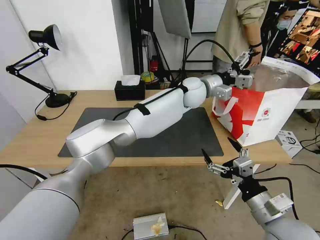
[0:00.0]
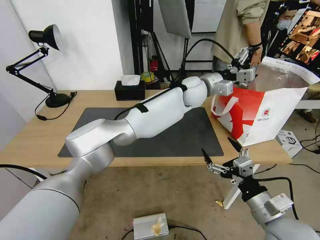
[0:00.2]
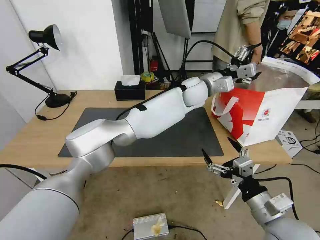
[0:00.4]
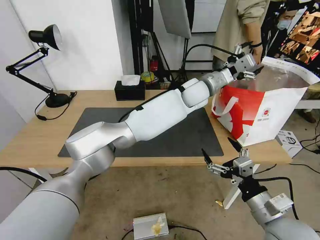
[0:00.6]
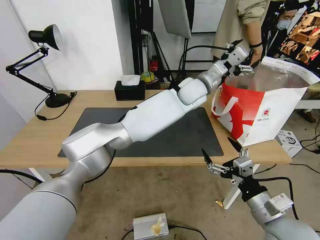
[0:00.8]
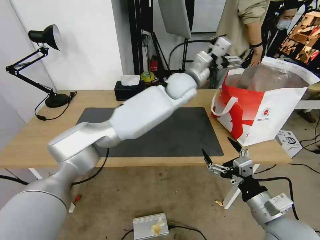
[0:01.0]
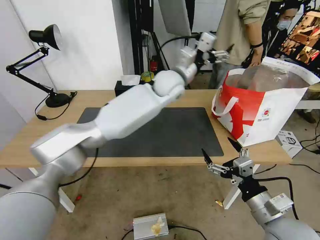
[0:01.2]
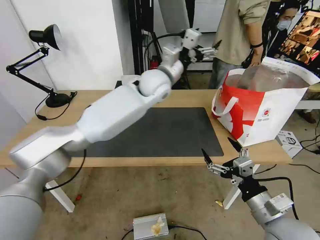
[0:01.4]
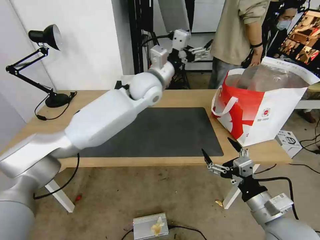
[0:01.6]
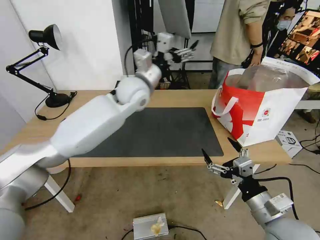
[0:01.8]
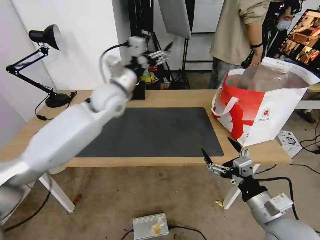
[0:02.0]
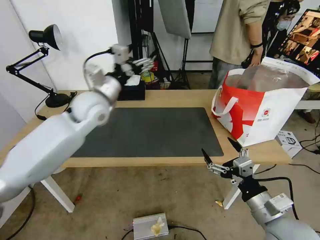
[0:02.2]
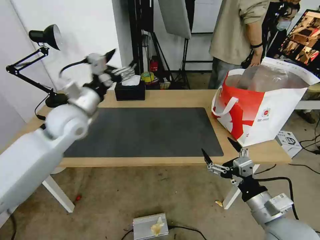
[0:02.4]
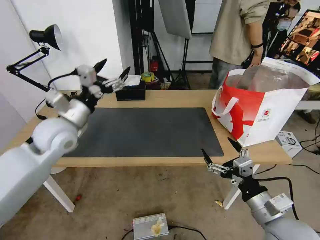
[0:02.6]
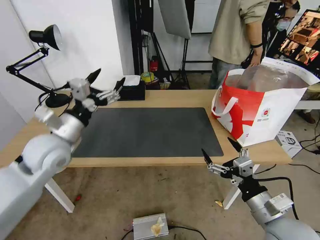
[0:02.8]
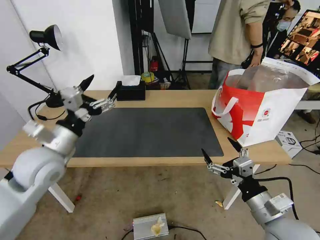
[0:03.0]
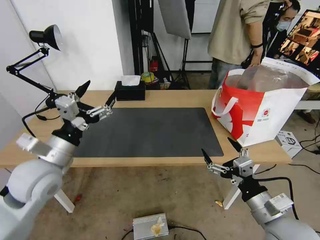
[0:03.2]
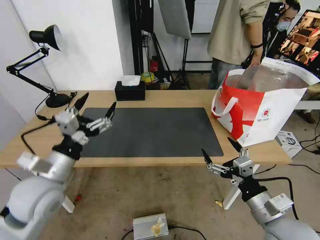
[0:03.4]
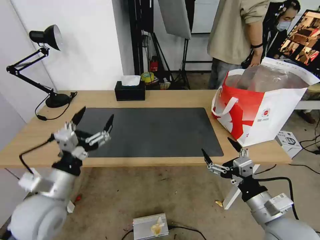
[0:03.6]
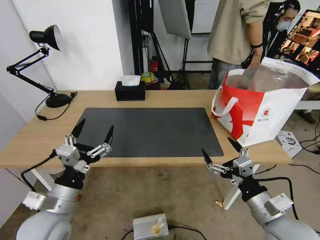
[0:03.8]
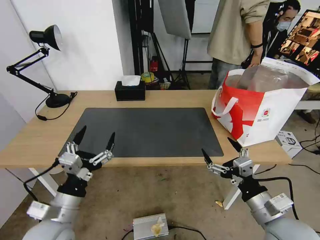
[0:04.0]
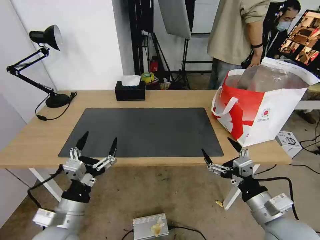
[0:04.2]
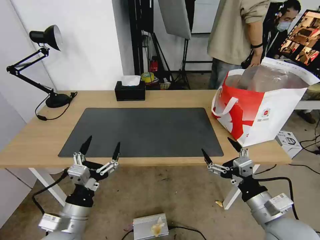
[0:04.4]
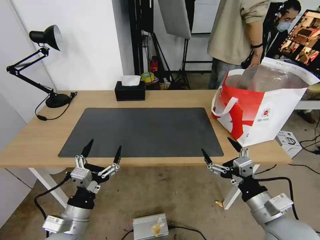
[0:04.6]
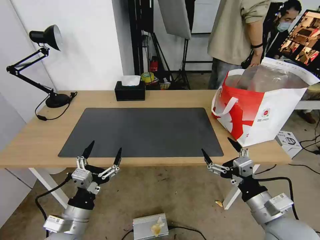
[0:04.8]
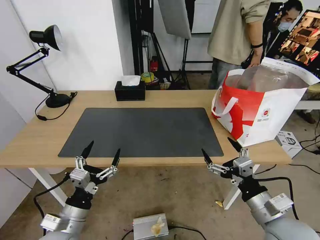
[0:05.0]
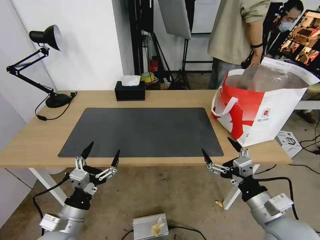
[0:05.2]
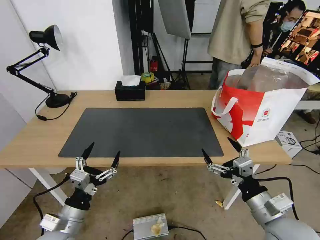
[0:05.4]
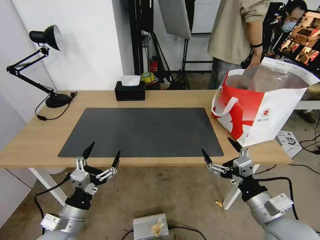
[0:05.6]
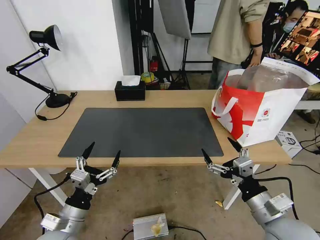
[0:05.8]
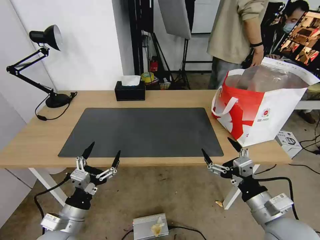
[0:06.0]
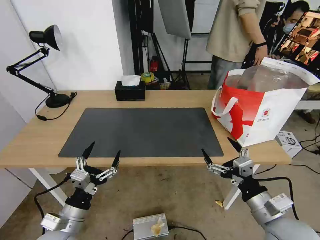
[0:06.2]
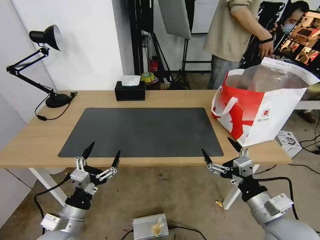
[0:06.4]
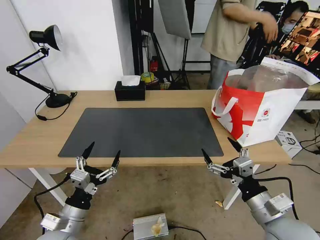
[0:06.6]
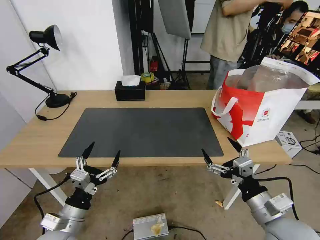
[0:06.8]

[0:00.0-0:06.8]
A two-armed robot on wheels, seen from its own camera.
Task of the whole recording: Pick up the trash from the table and place it into the takeout bag.
0:00.0 to 0:01.4: The left gripper travels to the left by about 15 cm.
0:01.4 to 0:02.8: The left gripper is displaced to the left and backward by approximately 35 cm.
0:02.8 to 0:04.0: The left gripper moves backward and downward, roughly 20 cm.
0:04.0 to 0:05.4: The left gripper travels downward by approximately 5 cm.
0:05.4 to 0:06.8: The two grippers keep their place.

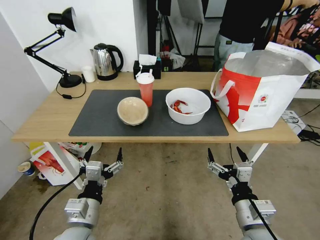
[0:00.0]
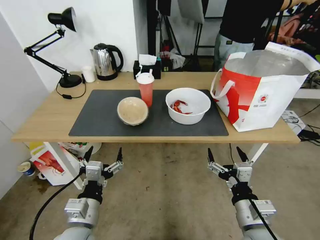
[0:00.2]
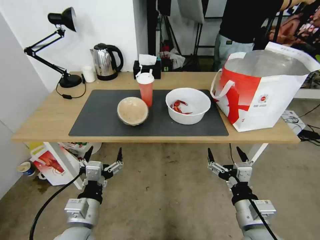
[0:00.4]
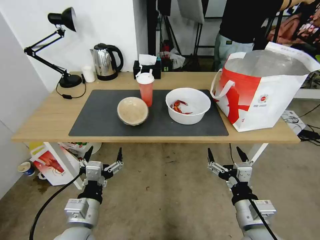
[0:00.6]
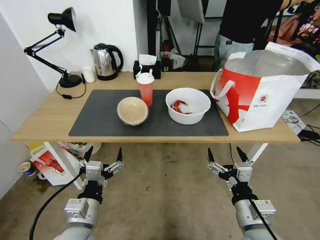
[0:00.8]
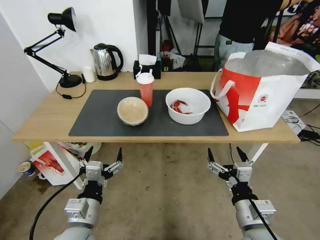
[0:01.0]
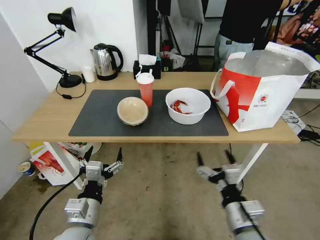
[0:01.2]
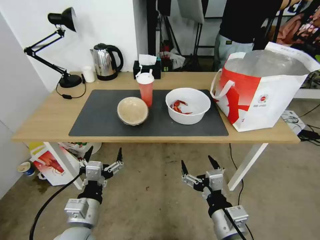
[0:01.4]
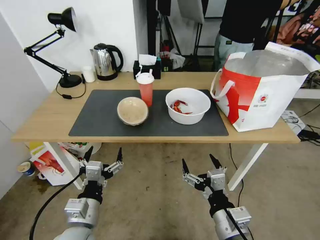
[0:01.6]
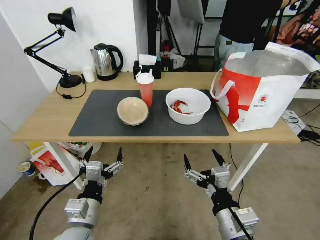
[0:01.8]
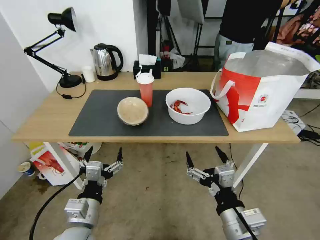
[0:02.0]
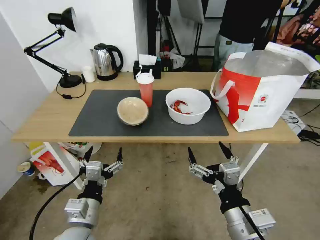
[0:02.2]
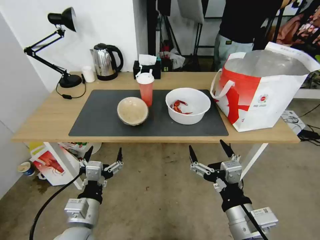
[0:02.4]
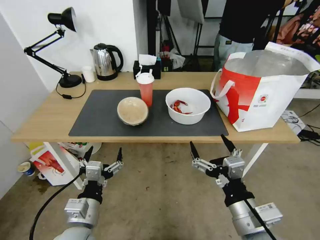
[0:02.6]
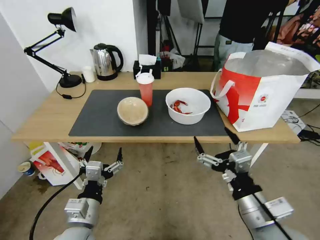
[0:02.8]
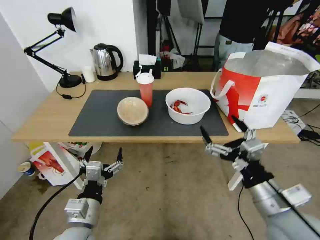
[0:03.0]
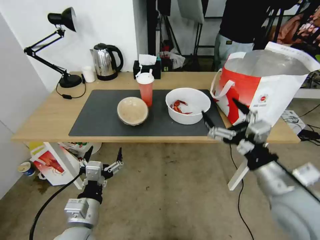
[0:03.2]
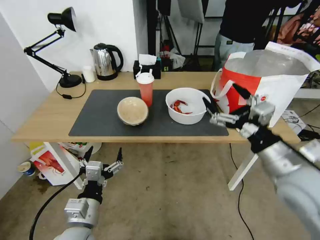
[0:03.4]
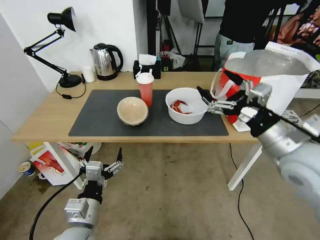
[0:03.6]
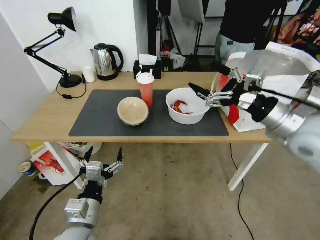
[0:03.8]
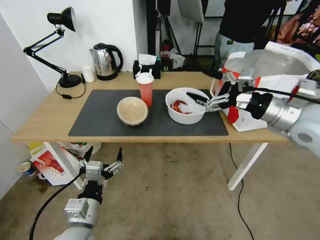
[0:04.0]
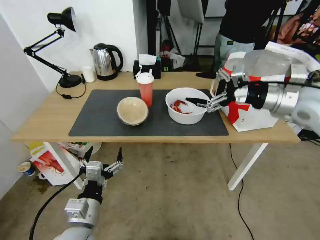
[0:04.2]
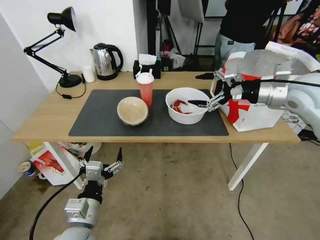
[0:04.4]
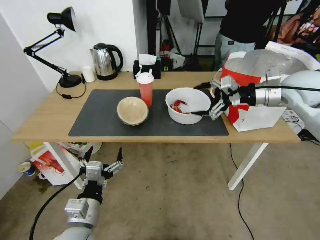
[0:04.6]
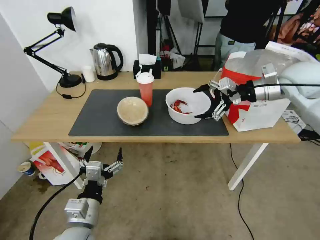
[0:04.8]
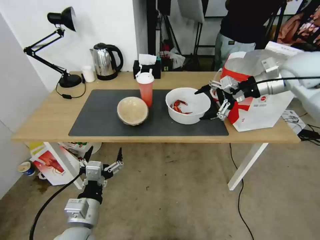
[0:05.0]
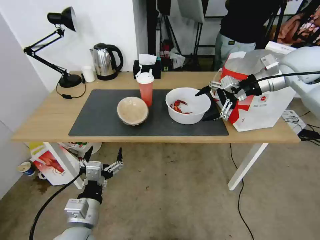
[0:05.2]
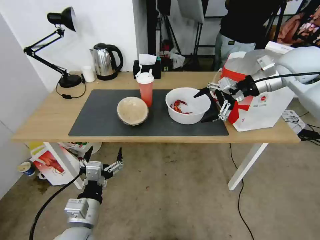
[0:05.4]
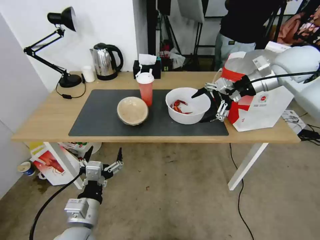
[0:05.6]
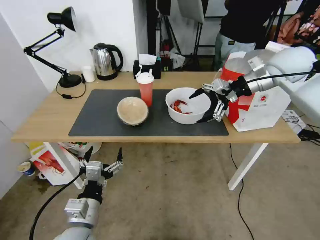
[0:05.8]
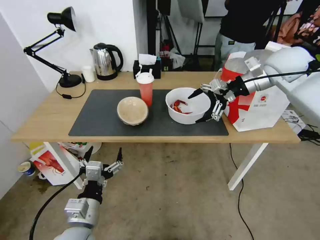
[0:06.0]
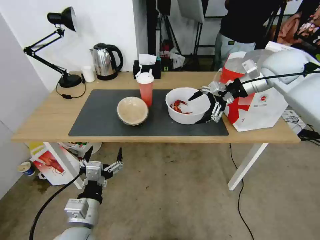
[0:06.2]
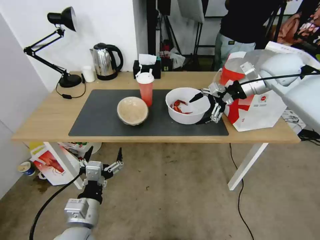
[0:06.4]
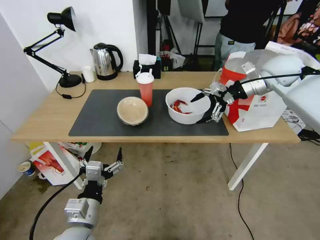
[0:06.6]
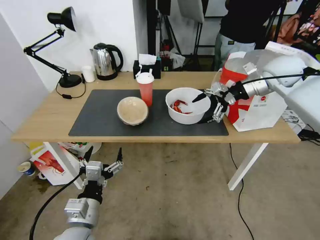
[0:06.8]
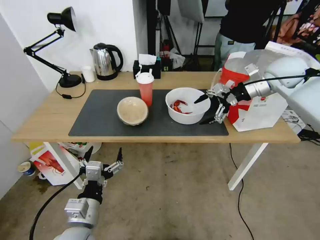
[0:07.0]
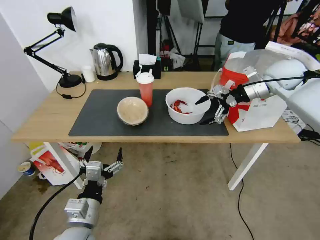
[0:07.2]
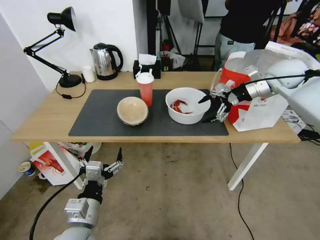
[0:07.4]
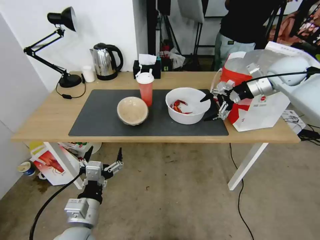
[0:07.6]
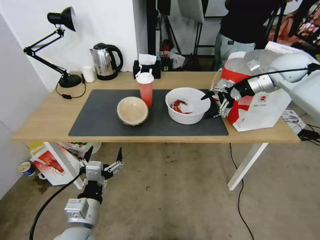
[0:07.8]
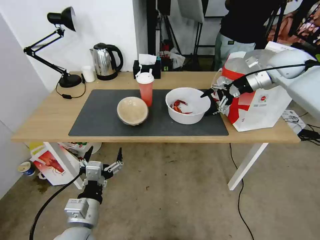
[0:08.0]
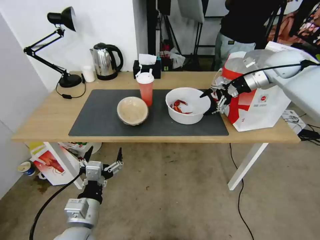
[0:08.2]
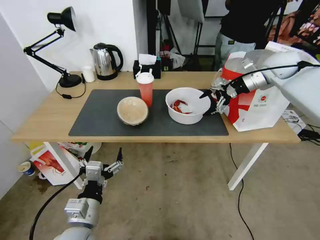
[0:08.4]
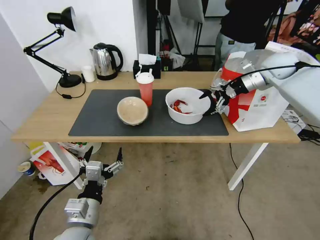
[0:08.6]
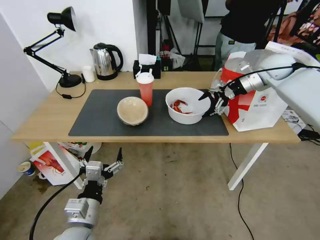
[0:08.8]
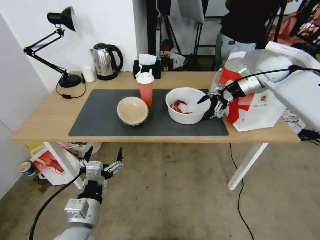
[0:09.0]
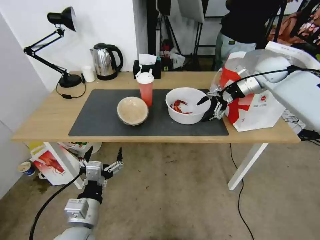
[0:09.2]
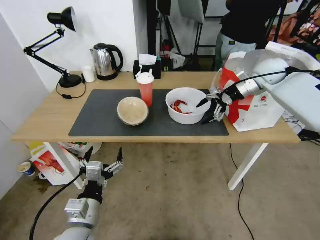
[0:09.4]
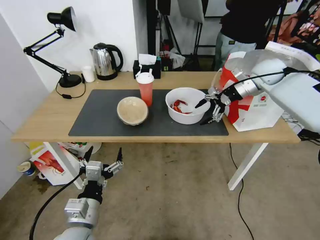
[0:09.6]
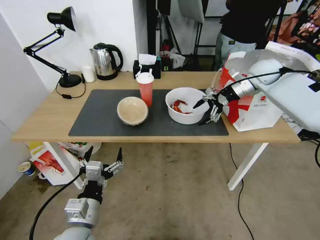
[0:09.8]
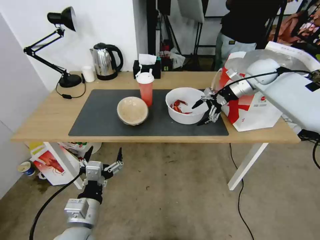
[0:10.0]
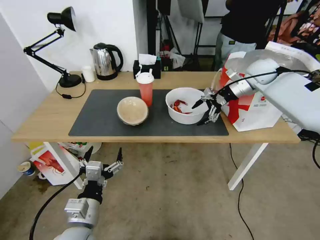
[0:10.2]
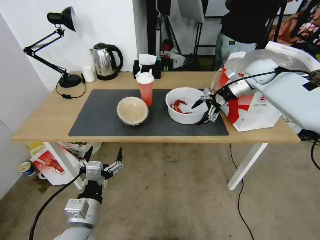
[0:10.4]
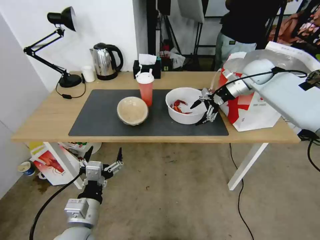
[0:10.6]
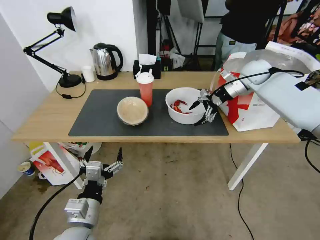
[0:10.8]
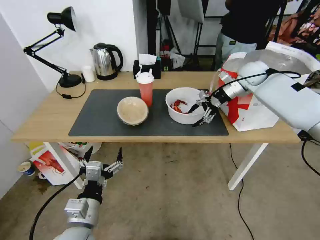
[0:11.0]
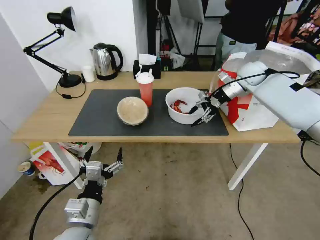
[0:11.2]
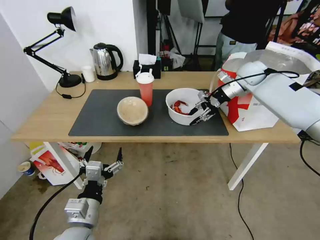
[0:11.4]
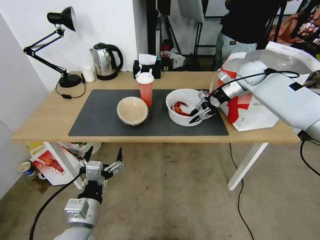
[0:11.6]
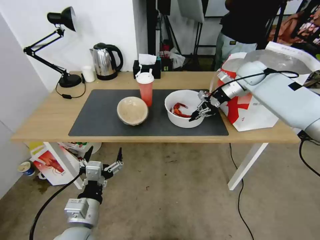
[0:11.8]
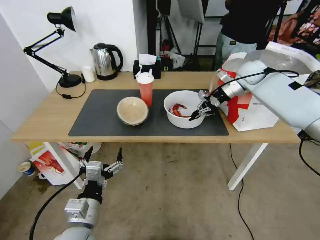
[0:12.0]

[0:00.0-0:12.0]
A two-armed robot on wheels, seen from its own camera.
Task of the whole recording: Pick up the trash from the table and place it into the takeout bag.
0:01.6 to 0:03.0: The right gripper is displaced to the right and upward by about 10 cm.
0:03.0 to 0:04.4: The right gripper is displaced forward and upward by about 30 cm.
0:04.4 to 0:06.0: The right gripper goes about 10 cm forward.
0:06.0 to 0:07.6: The right gripper shifts by approximately 5 cm.
0:07.6 to 0:09.0: The right gripper moves about 5 cm.
0:09.0 to 0:10.4: The grippers make only small movements.
0:10.4 to 0:12.0: The right gripper closes.

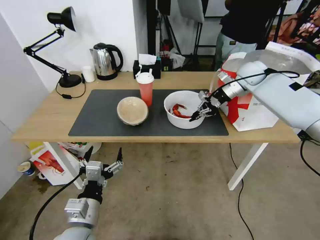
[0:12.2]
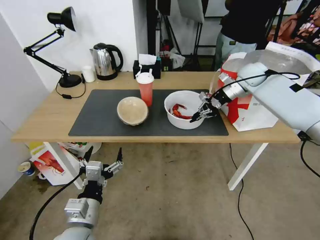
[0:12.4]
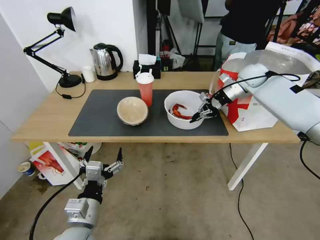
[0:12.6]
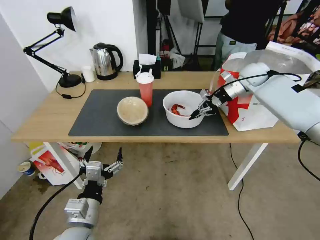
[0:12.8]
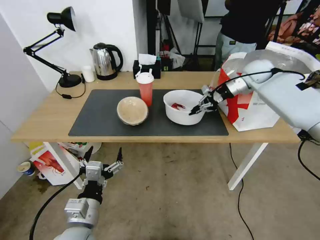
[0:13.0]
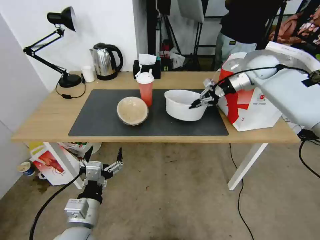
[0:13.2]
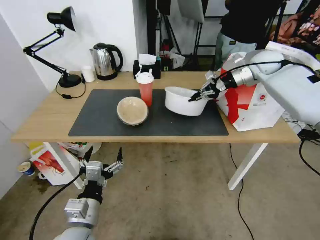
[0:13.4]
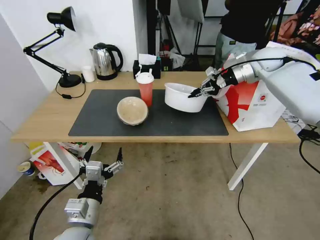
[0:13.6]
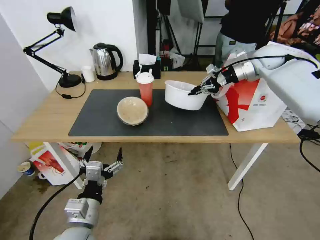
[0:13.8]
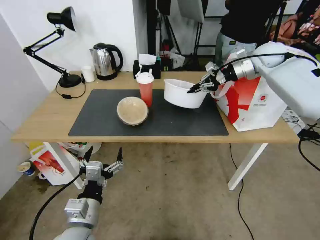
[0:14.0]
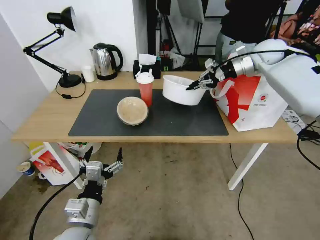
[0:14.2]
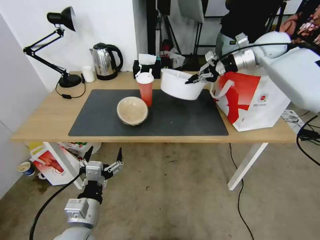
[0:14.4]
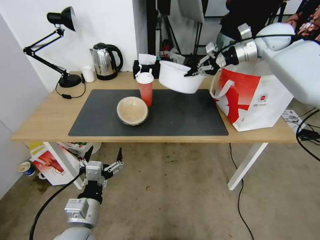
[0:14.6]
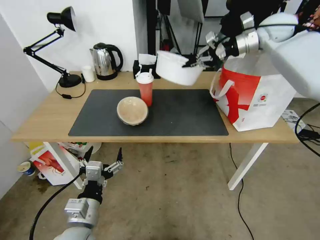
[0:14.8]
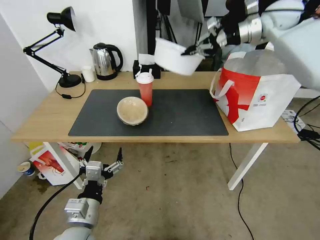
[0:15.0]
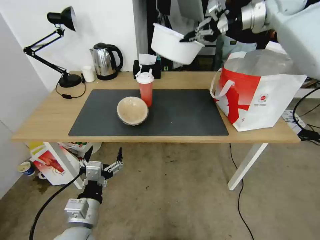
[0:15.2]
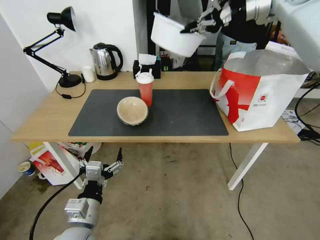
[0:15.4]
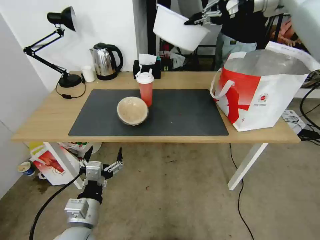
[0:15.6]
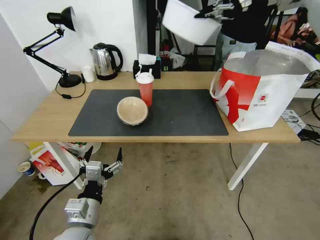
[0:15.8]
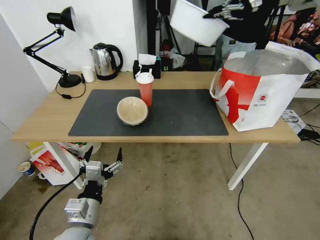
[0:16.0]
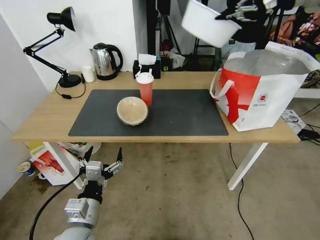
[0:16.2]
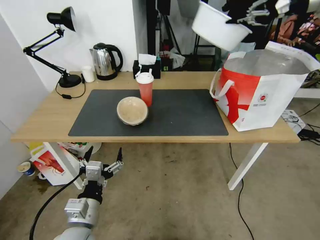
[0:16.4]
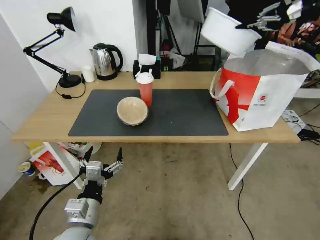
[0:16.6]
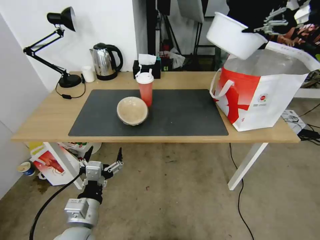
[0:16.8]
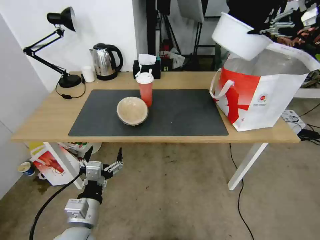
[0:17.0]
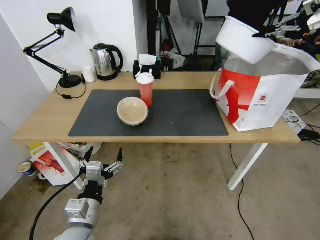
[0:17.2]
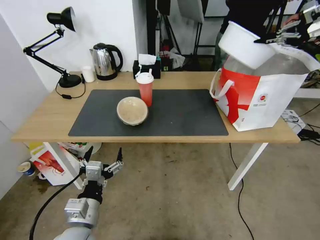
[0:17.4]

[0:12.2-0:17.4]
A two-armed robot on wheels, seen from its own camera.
Task of the whole recording: Pick up the trash from the table and place it into the takeout bag.
0:12.2 to 0:14.0: The right gripper shifts approximately 5 cm upward.
0:14.0 to 0:15.6: The right gripper is displaced upward by approximately 20 cm.
0:15.6 to 0:17.4: The right gripper goes some 20 cm to the right.
